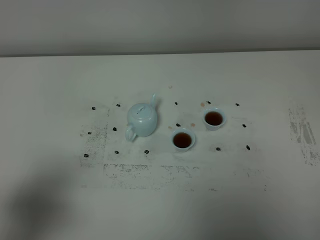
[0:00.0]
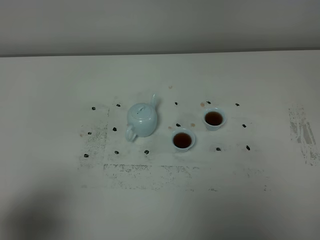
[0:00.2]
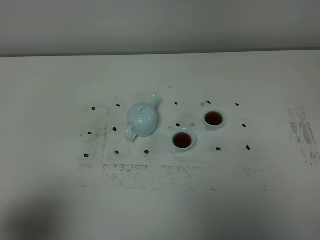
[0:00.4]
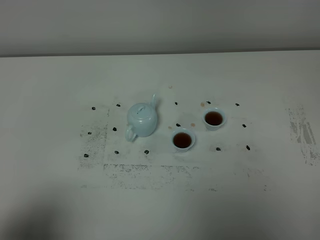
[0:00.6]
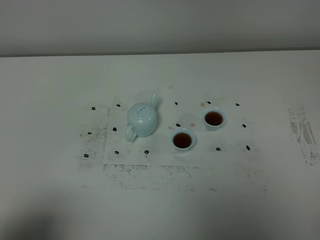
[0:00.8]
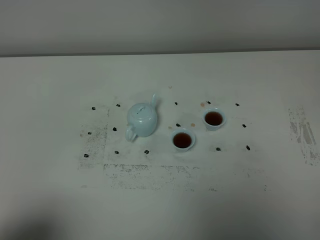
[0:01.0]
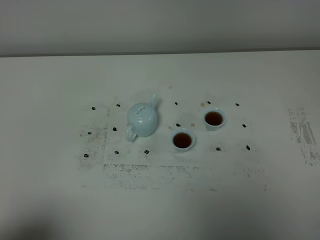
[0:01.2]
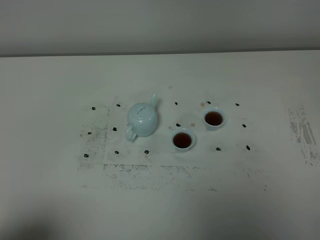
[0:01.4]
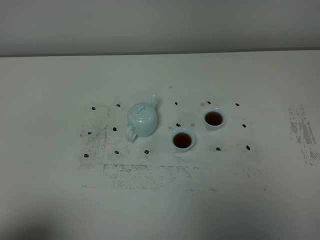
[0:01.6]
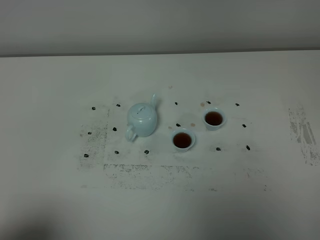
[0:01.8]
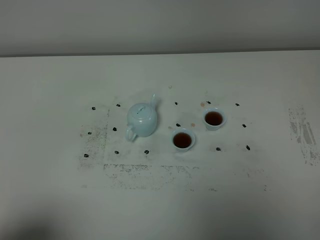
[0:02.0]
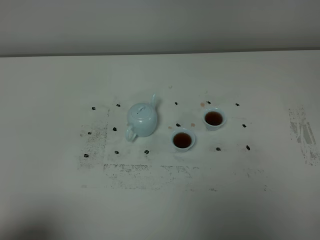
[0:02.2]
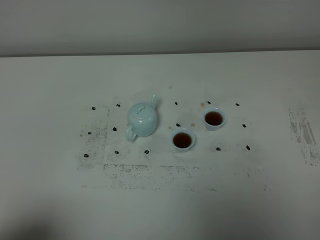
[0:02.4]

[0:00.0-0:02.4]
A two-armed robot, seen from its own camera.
Task of the whole recording: grasp the blue porcelain teapot and pour the tea into the two blue porcelain teacups one by one, put the blue porcelain teapot back in its original place.
0:00.0 to 0:01.2: The left gripper shifts roughly 10 cm backward.
0:01.2 to 0:02.4: Both grippers stay about where they are.
